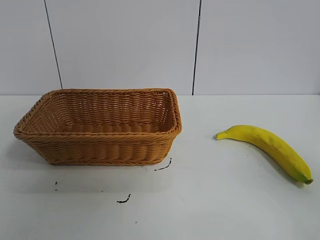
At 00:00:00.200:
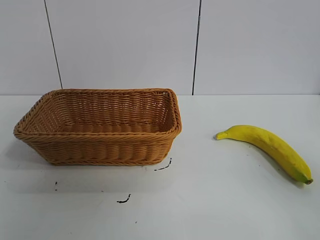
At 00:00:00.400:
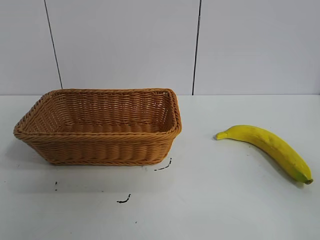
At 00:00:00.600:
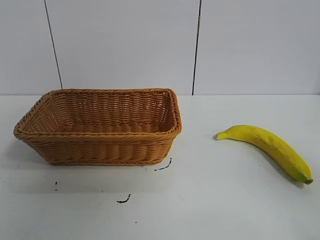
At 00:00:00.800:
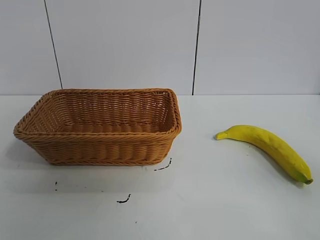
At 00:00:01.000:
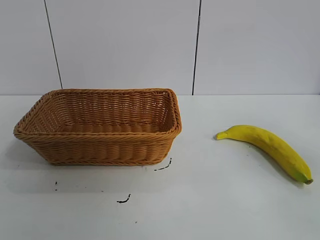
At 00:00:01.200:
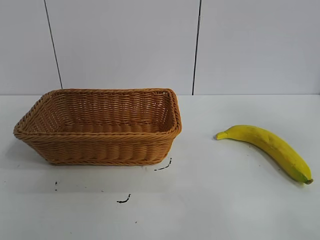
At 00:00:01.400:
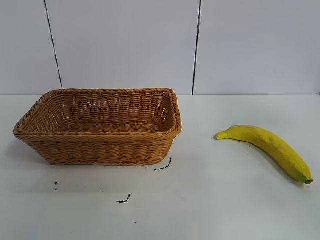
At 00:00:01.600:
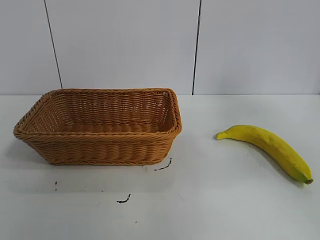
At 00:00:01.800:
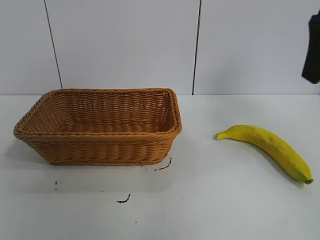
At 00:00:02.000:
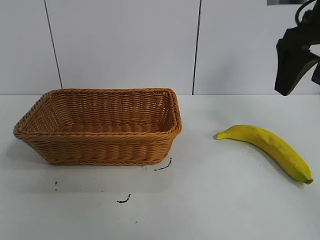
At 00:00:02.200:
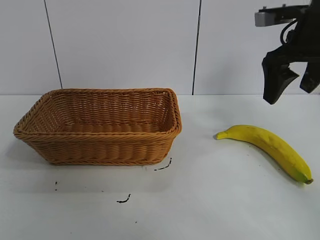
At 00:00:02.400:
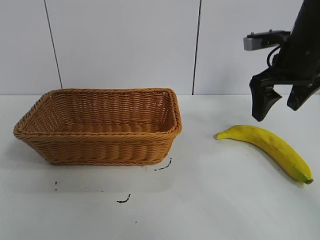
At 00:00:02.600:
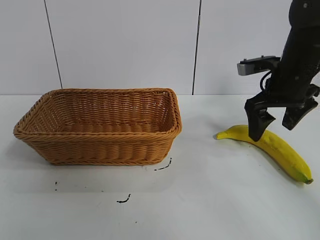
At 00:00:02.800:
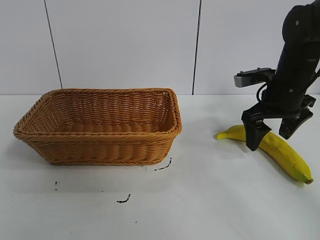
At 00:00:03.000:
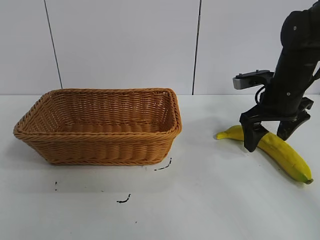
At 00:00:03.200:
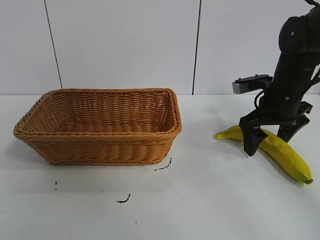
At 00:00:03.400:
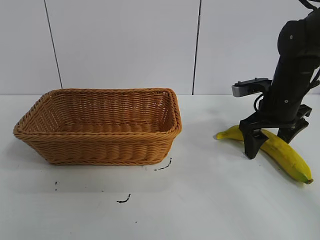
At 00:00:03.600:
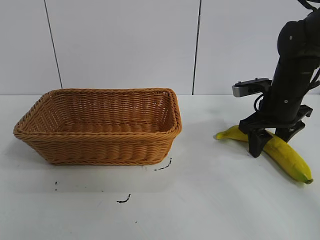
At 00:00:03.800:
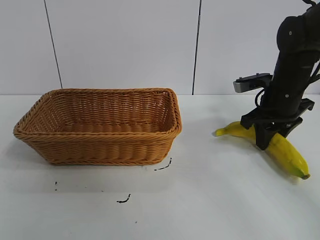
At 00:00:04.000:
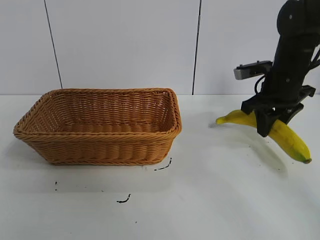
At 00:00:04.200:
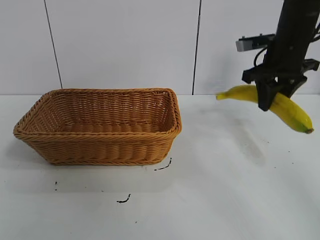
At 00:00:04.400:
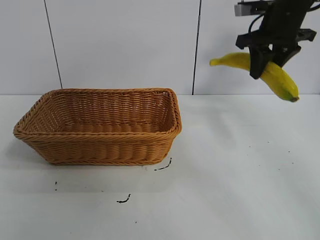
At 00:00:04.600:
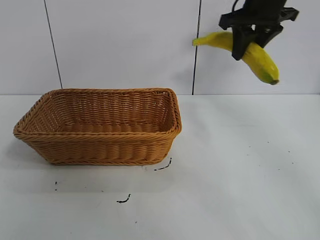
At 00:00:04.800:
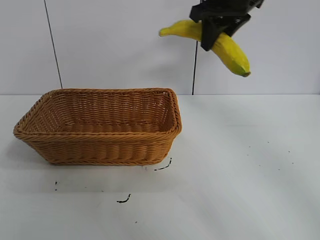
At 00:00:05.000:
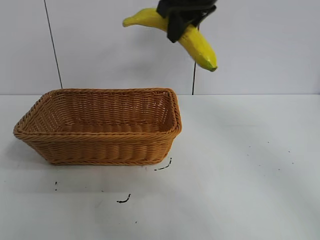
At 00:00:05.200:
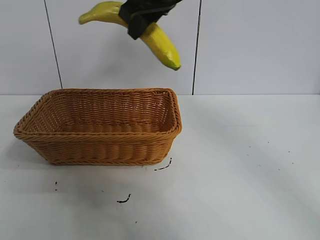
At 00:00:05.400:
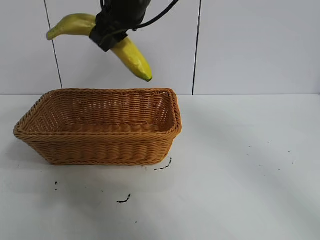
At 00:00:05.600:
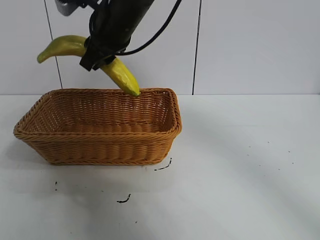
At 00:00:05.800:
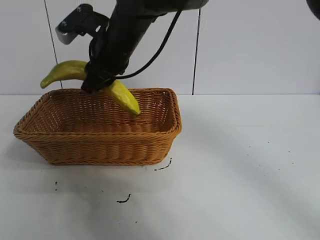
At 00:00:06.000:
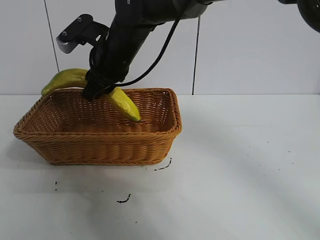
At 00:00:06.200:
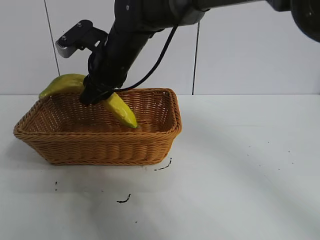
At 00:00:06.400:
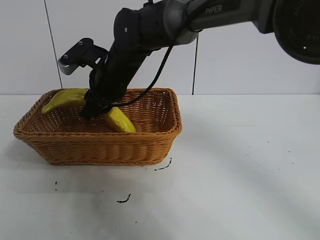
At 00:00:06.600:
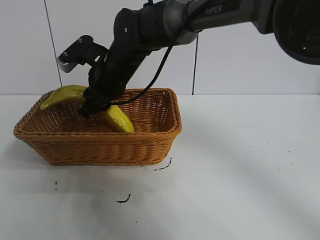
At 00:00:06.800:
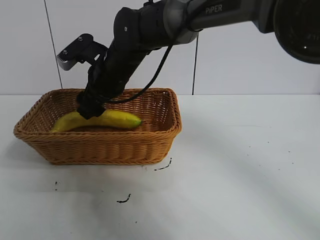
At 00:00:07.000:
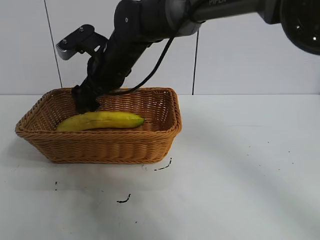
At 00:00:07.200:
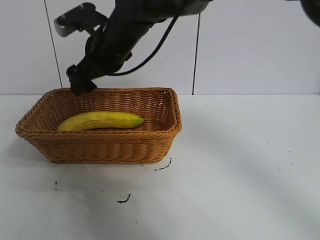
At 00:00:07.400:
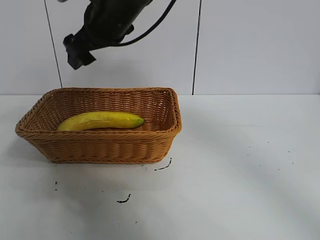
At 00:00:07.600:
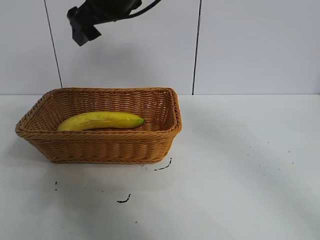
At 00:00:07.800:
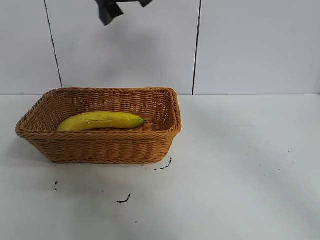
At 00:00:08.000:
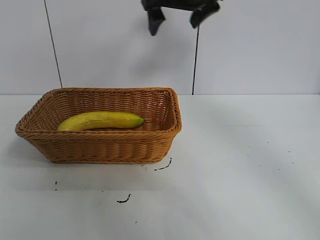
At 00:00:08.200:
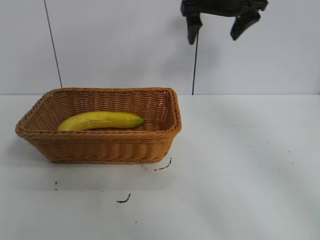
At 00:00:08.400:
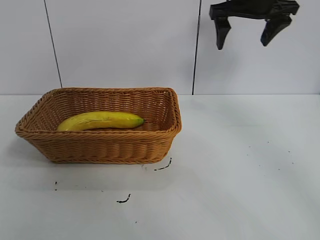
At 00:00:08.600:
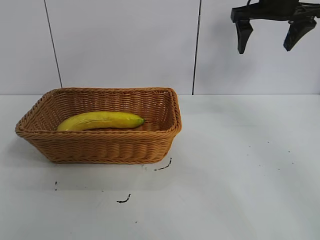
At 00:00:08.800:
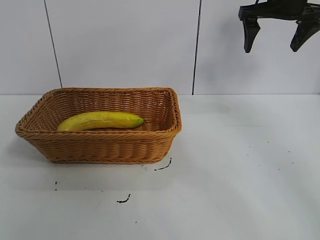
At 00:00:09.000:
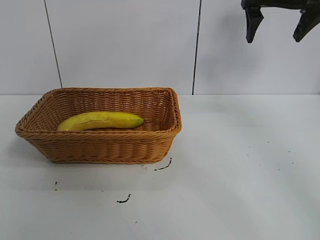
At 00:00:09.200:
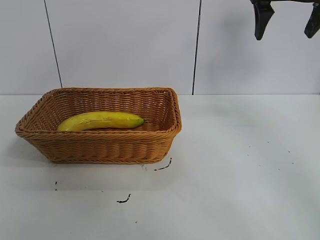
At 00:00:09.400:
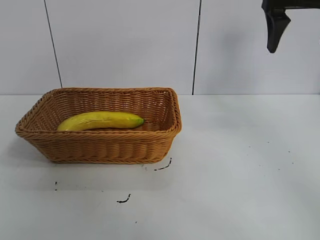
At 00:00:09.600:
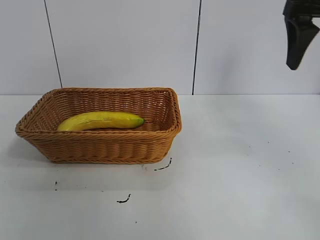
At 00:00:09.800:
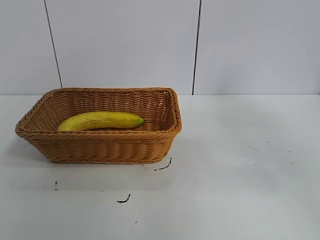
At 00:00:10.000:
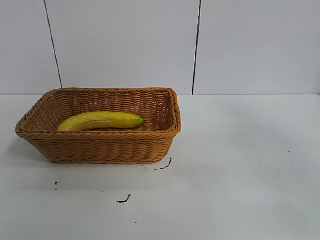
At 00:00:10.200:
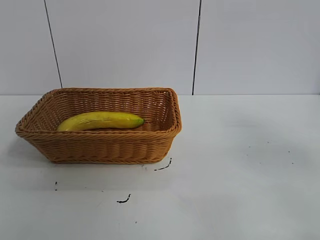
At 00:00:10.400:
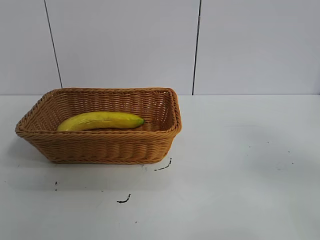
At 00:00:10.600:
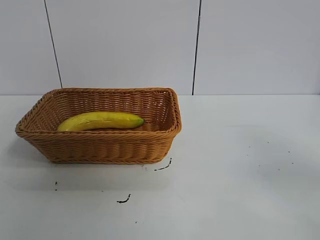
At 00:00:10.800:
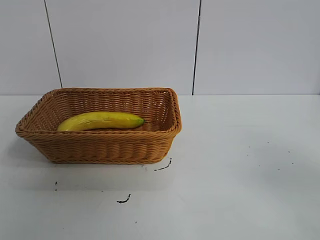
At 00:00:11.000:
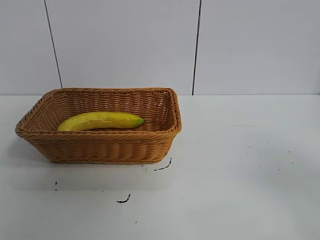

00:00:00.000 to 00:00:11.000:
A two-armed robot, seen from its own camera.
Task of the whole recording: pick up the banana and put it into the basket.
Step, 00:00:00.800 to 00:00:03.600: Grasp the banana with right gripper.
Step, 00:00:03.800 to 00:00:06.800: Place the banana in the basket with right gripper.
